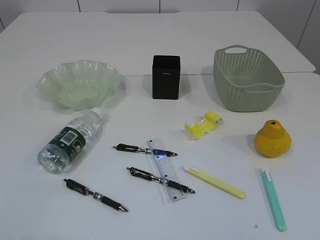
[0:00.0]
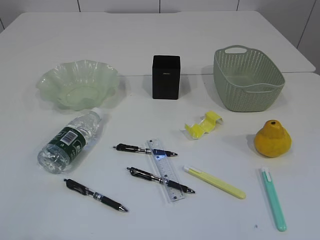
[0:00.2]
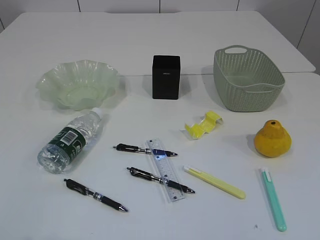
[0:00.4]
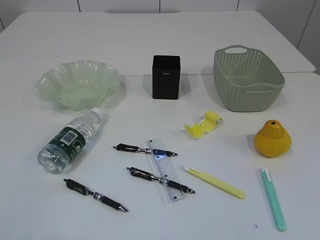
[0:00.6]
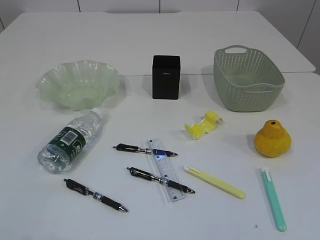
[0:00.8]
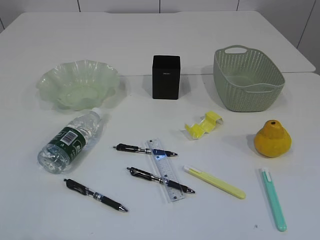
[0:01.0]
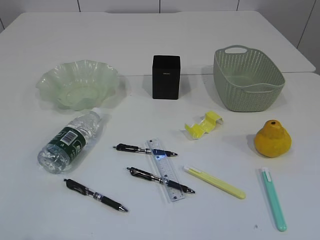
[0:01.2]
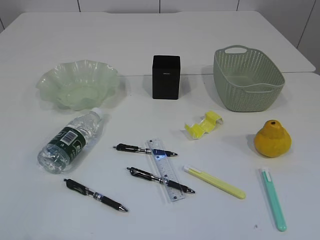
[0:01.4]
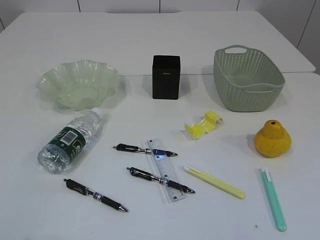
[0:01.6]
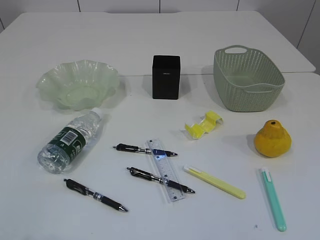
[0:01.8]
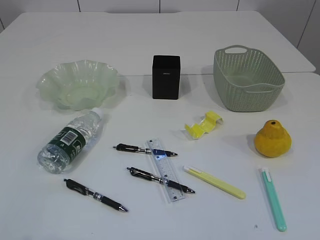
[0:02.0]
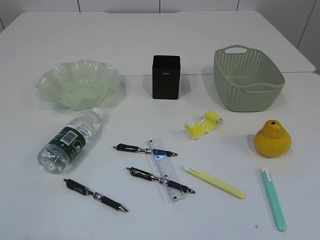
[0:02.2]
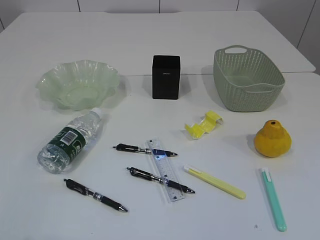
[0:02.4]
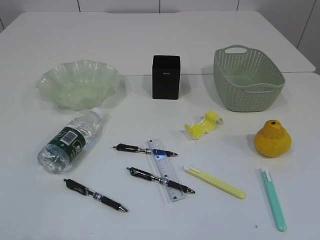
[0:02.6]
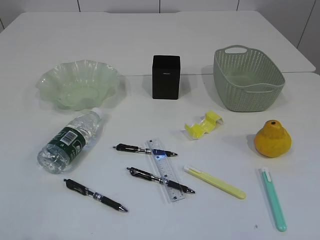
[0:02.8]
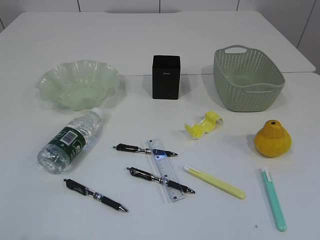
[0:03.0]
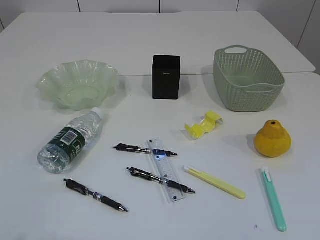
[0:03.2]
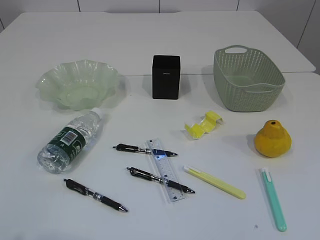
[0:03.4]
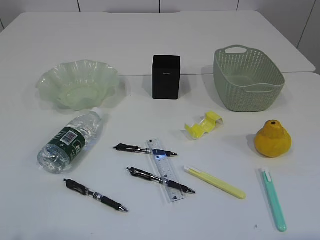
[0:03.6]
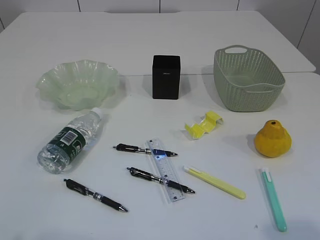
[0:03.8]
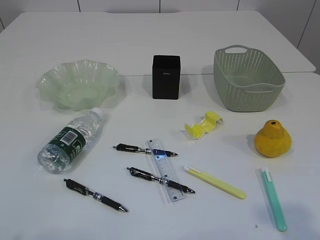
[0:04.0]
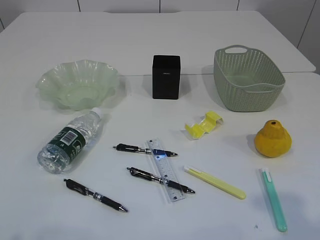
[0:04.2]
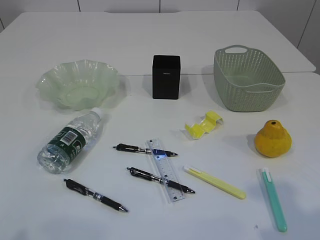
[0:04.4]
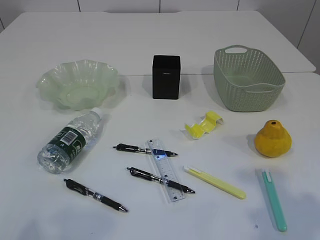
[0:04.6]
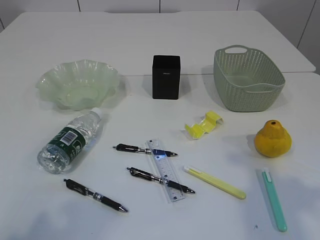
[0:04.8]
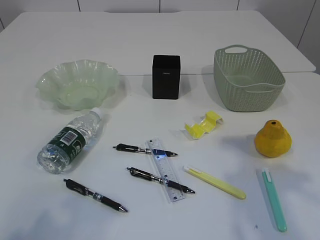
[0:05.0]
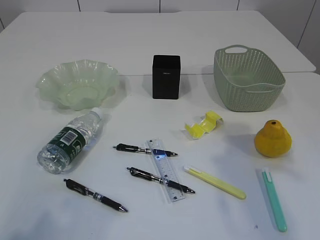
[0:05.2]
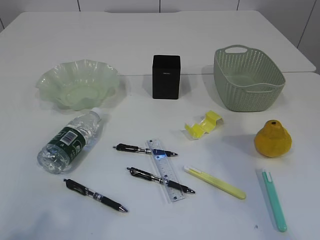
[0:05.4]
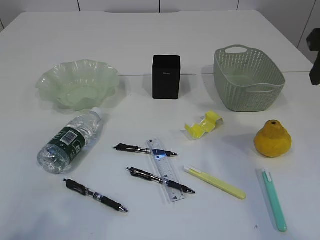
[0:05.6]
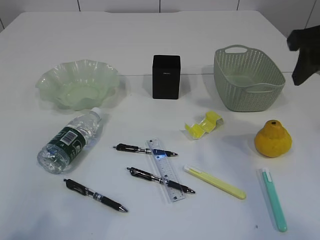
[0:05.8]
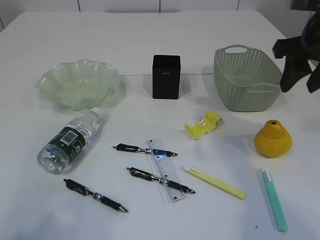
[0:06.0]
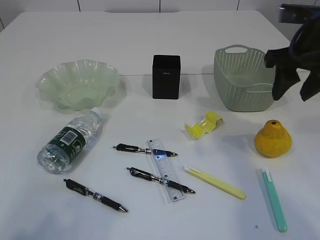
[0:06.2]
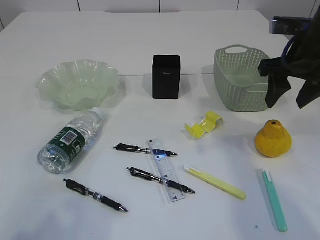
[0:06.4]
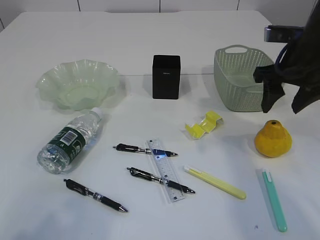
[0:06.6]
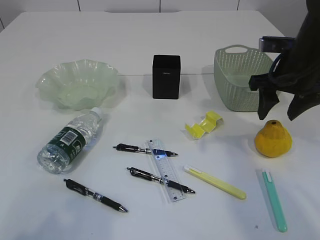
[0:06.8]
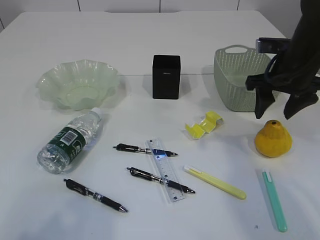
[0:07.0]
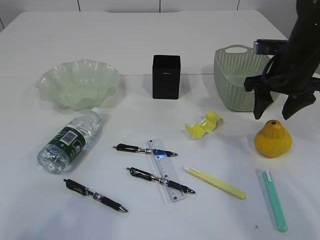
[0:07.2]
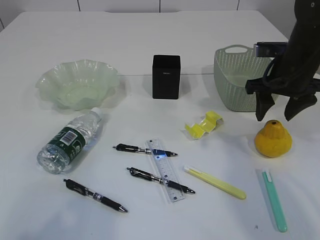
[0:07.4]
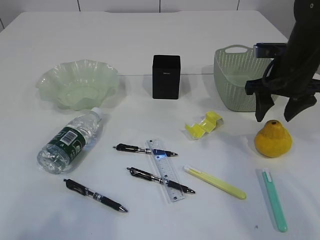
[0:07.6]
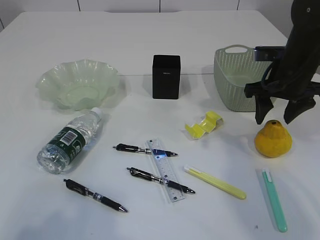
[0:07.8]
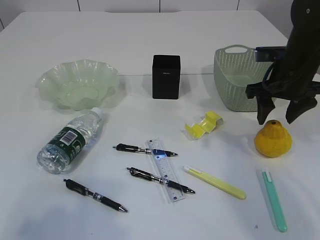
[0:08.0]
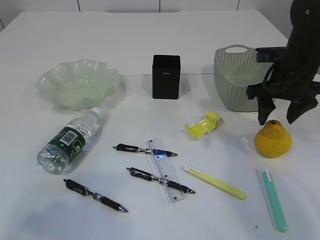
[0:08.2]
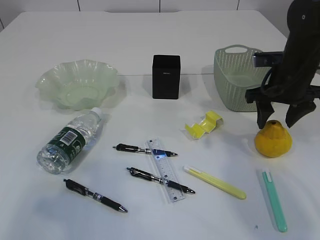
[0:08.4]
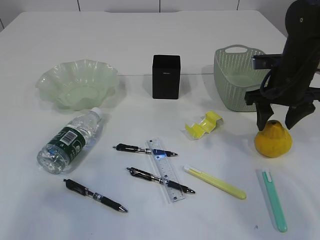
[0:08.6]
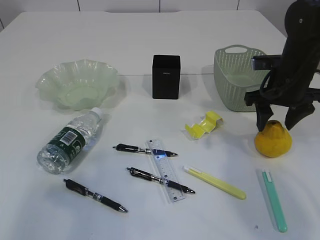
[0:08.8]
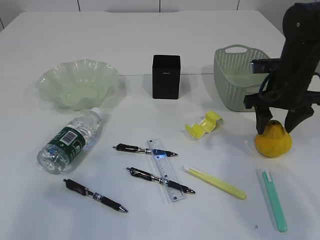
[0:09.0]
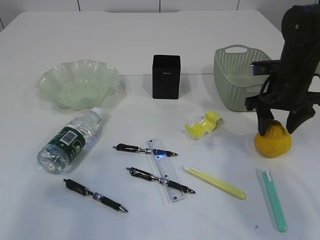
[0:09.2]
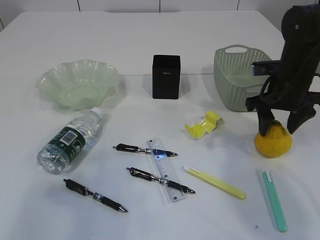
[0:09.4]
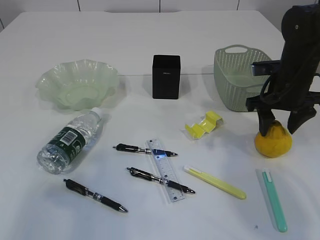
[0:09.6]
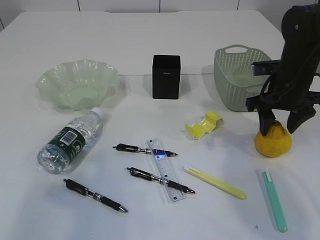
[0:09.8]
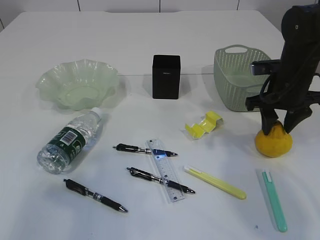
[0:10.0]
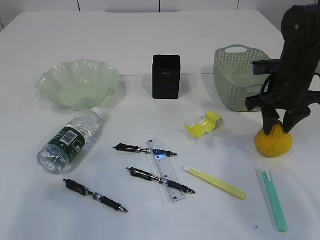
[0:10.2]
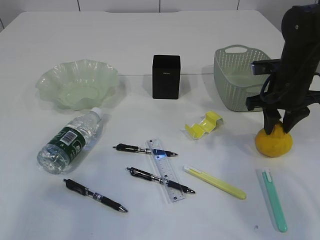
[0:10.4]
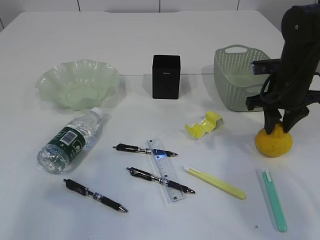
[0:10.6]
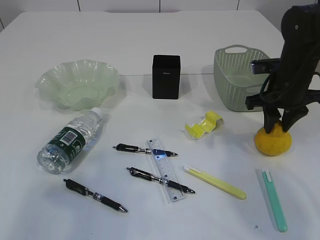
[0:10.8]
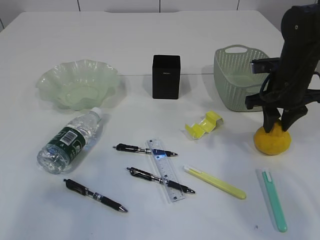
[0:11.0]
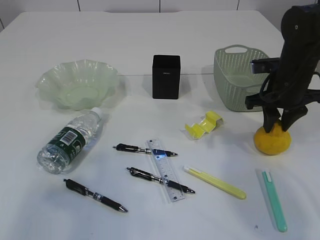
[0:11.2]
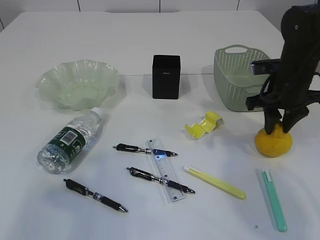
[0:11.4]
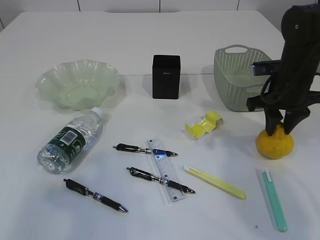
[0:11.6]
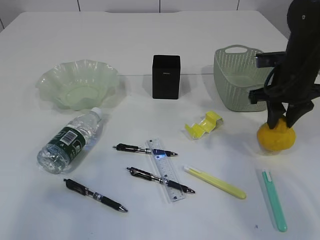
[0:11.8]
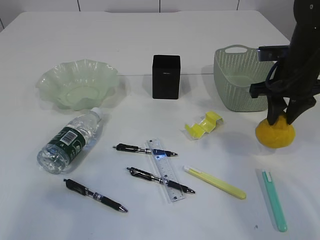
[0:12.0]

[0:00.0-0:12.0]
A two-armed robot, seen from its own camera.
0:01.6 to 0:03.0: Both grippers stay put.
0:03.0 to 0:04.4: The right gripper travels forward by about 10 cm.
0:04.4 to 0:06.0: The right gripper travels forward by approximately 25 cm.
0:06.0 to 0:07.6: The right gripper heads downward and forward, covering about 10 cm.
0:09.0 to 0:10.4: The right gripper closes its fingers.
0:10.4 to 0:12.0: There are only small adjustments of the grippers.

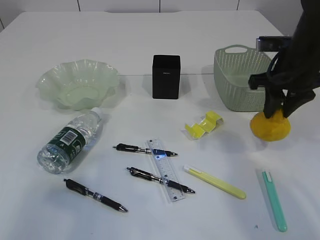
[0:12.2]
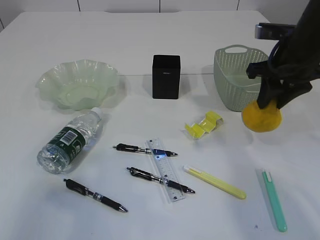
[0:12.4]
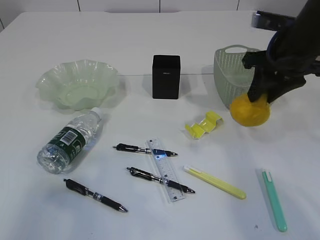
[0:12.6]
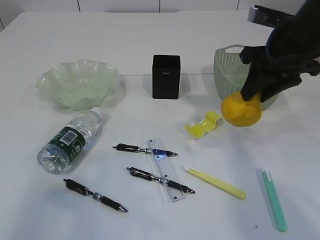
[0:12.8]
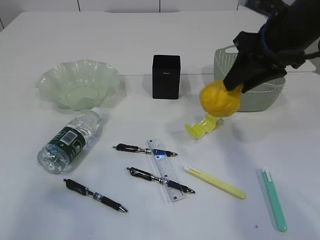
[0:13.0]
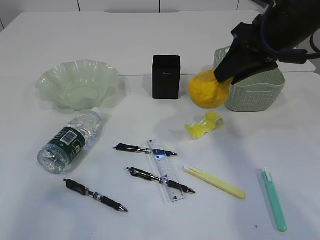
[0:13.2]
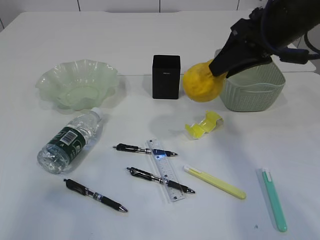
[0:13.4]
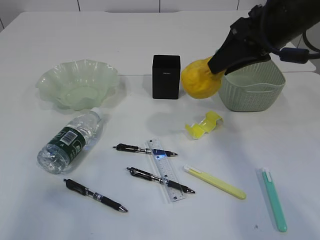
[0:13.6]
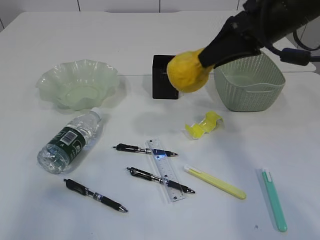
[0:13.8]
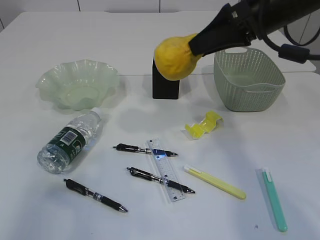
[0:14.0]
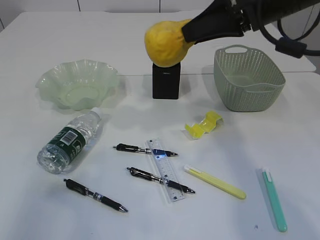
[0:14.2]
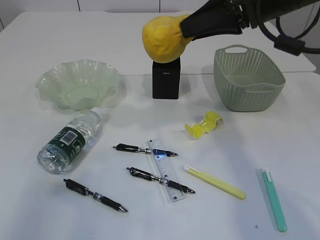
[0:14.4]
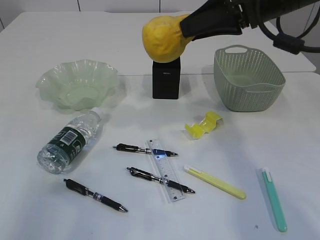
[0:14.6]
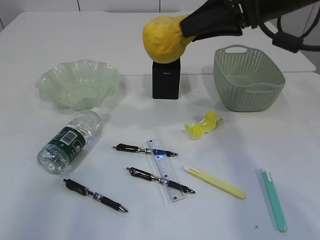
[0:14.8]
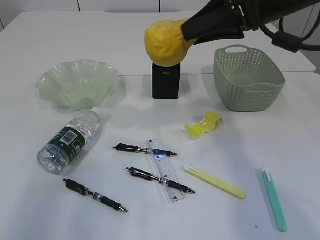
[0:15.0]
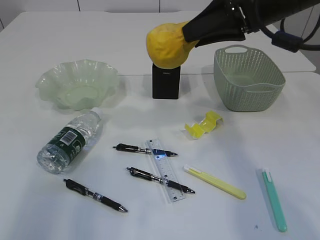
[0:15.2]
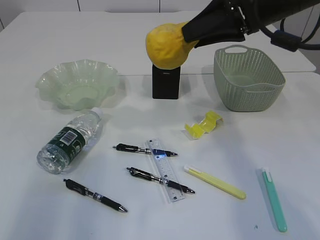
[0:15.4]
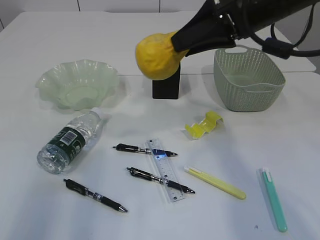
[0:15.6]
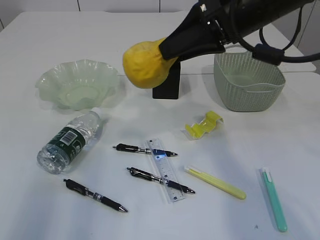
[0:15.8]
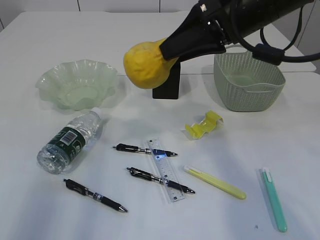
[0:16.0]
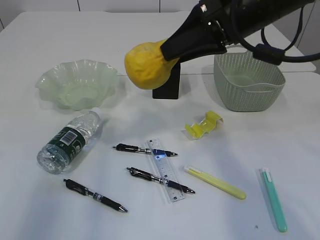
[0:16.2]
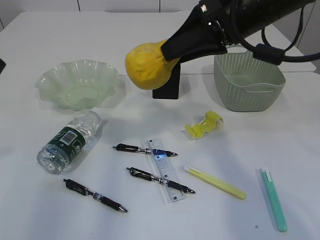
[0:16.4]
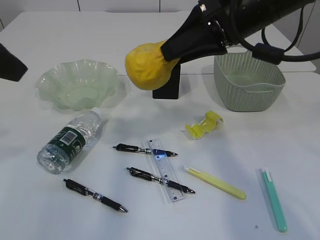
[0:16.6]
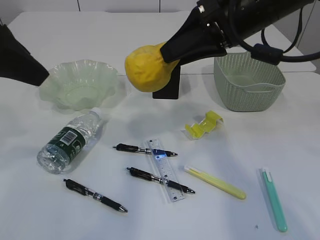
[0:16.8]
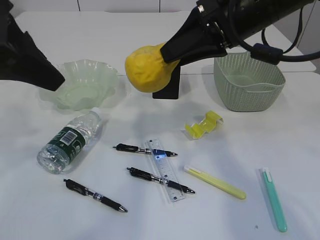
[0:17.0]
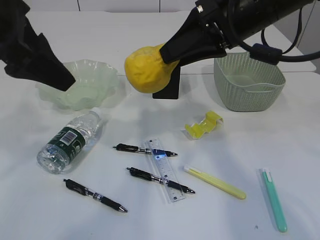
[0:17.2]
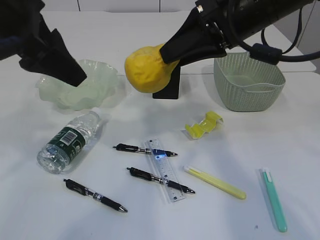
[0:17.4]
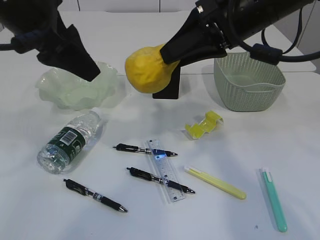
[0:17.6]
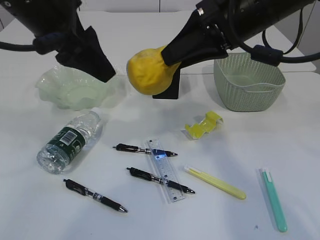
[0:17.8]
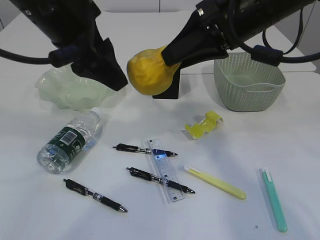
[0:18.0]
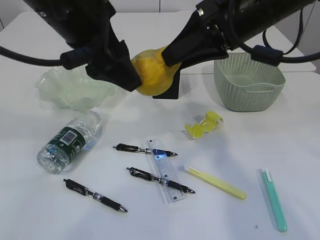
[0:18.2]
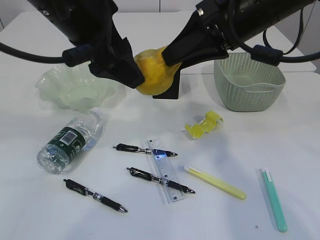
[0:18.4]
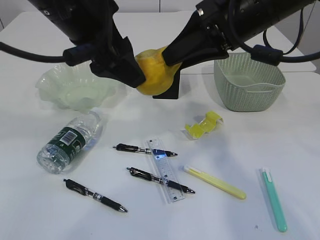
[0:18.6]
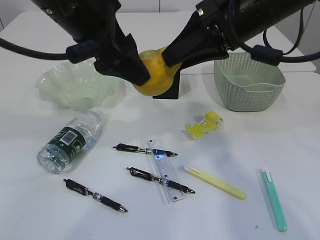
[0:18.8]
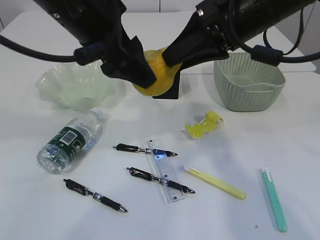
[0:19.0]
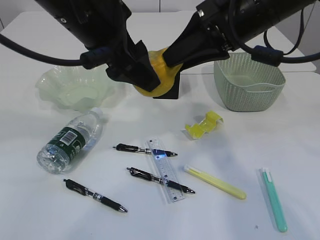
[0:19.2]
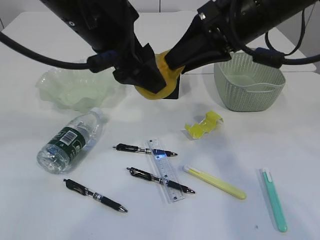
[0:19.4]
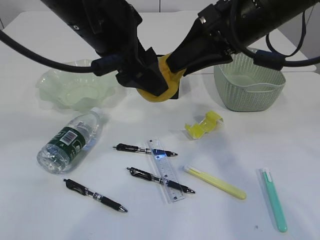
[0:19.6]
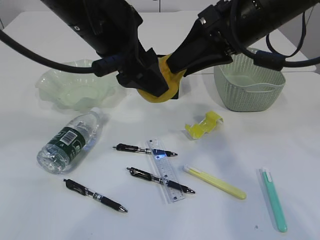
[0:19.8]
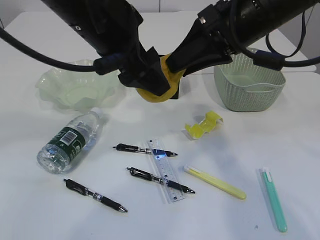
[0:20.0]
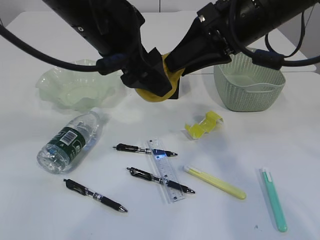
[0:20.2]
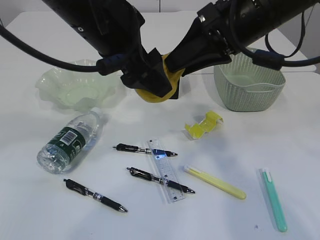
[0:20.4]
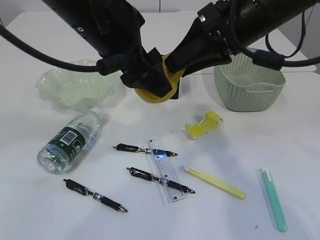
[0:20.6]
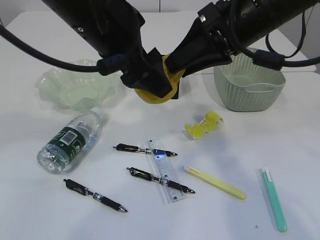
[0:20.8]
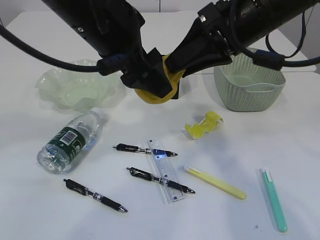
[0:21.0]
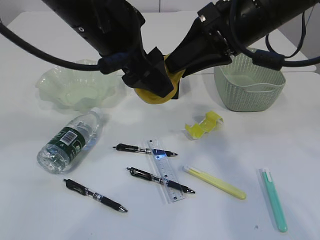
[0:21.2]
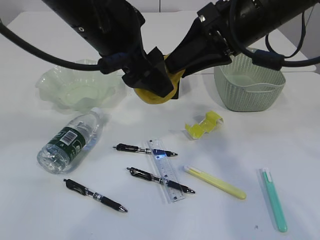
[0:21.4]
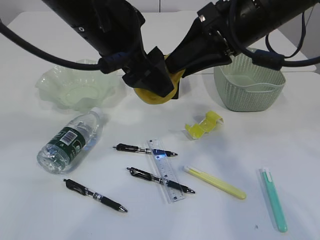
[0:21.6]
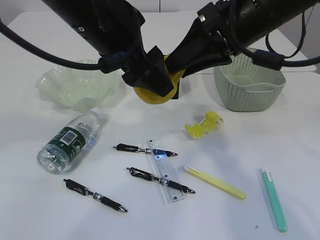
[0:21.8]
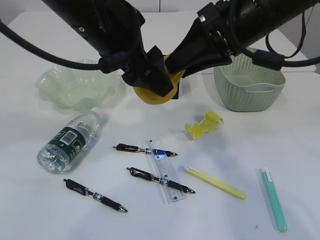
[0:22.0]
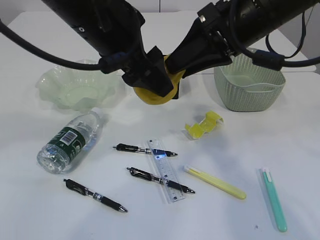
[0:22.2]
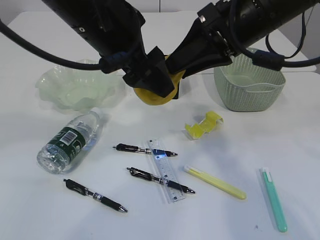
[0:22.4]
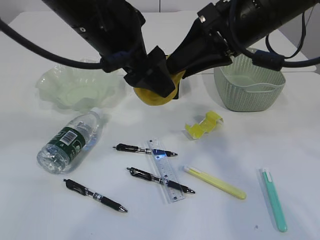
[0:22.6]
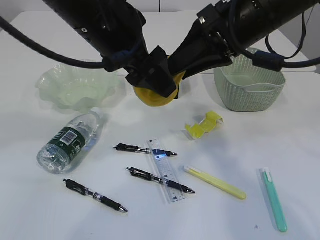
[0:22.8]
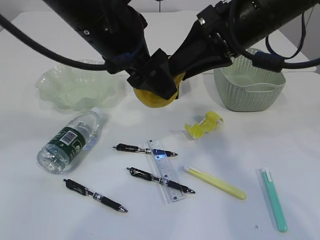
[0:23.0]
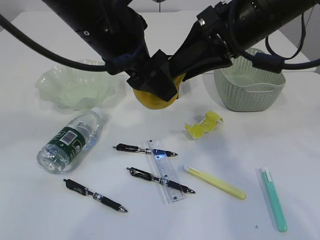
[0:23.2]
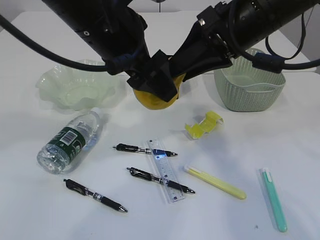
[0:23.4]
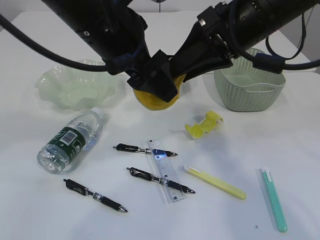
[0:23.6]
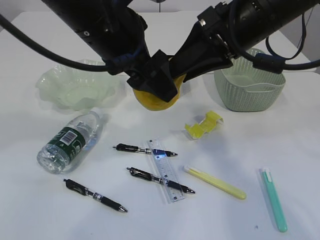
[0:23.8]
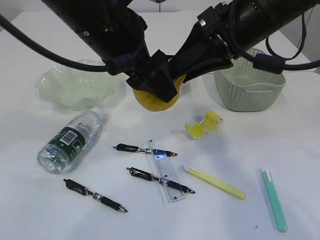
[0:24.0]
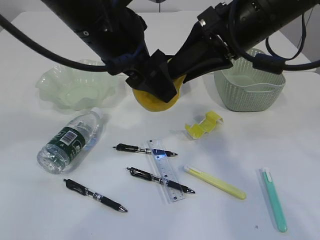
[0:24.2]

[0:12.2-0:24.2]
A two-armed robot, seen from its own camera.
0:12.2 to 0:13.8: The right gripper goes approximately 10 cm upward and to the left.
0:13.8 to 0:15.2: The grippers stay close to where they were, moving slightly.
0:15.2 to 0:16.6: The left gripper travels forward by approximately 10 cm, and opens its fingers.
0:16.6 to 0:18.2: The left gripper goes some 15 cm to the right.
0:18.2 to 0:19.8: The grippers move only a little.
0:19.8 to 0:21.2: Neither gripper changes place.
0:21.2 to 0:22.6: Neither gripper changes place.
0:22.6 to 0:24.2: The grippers move only a little.
